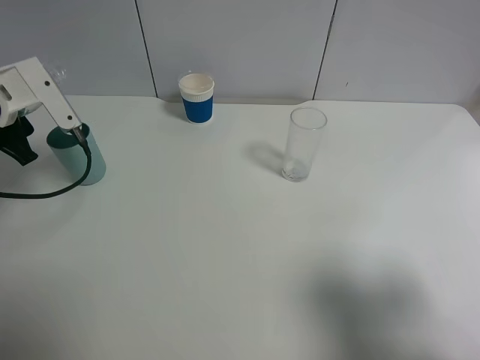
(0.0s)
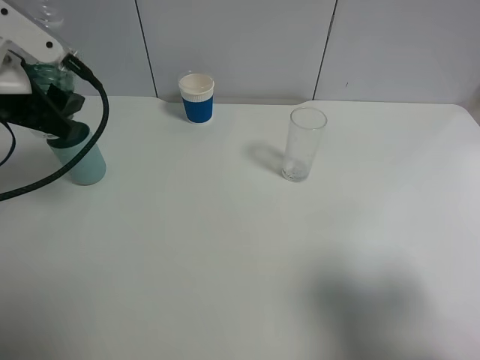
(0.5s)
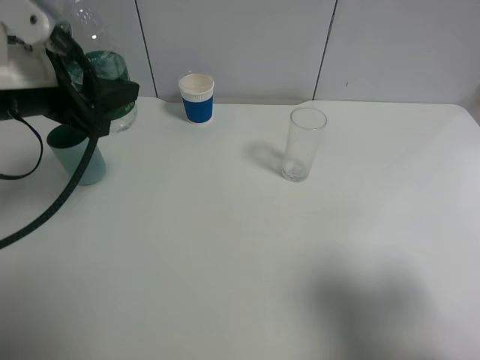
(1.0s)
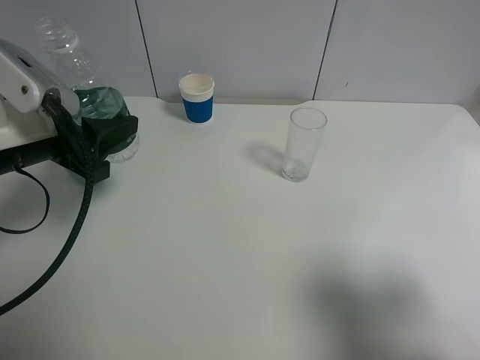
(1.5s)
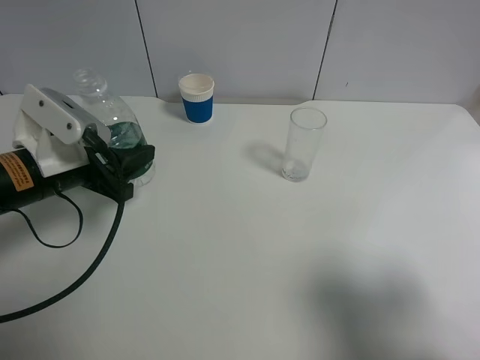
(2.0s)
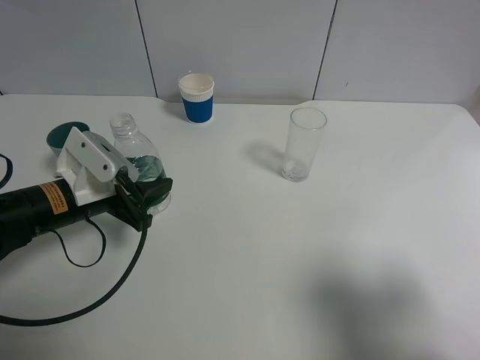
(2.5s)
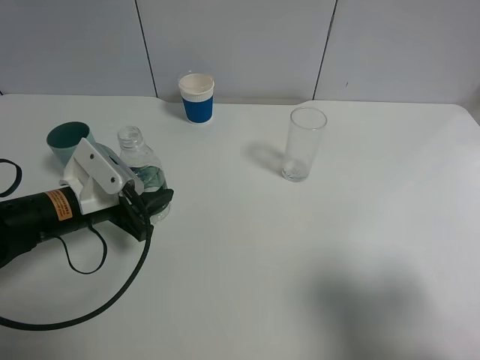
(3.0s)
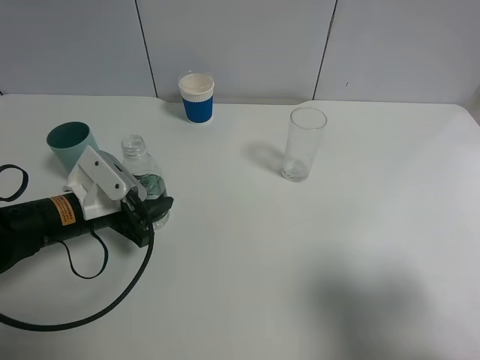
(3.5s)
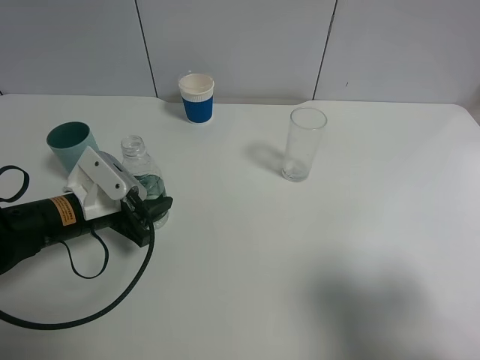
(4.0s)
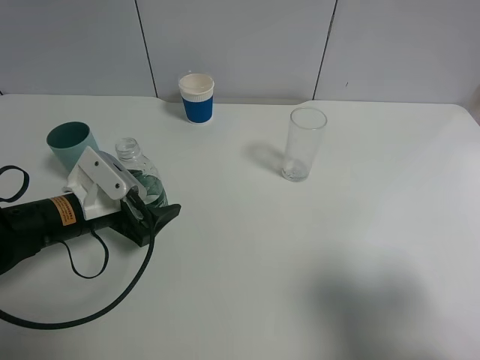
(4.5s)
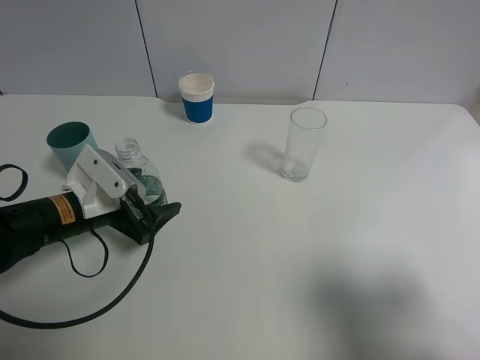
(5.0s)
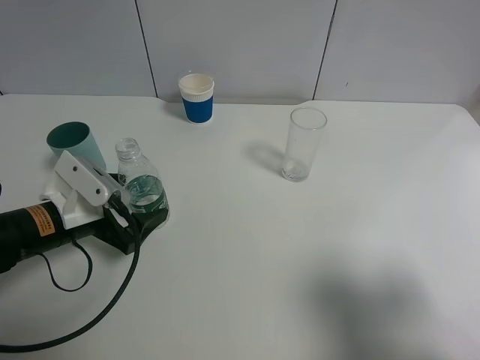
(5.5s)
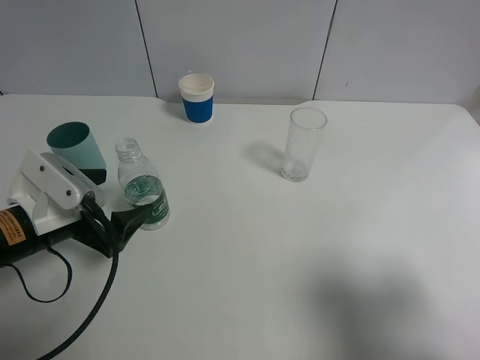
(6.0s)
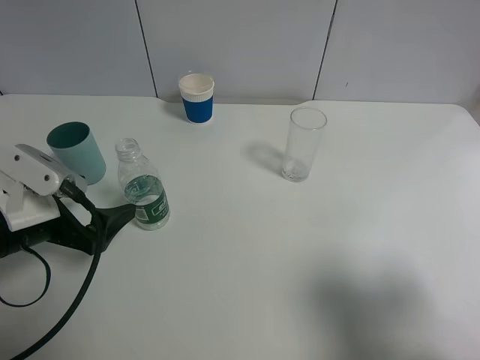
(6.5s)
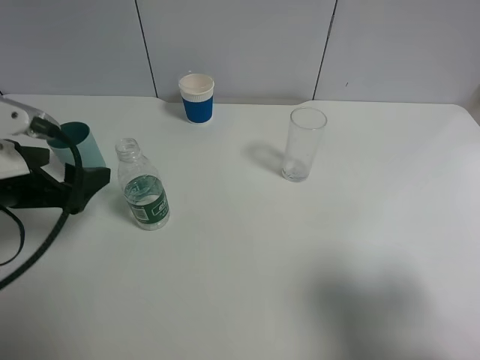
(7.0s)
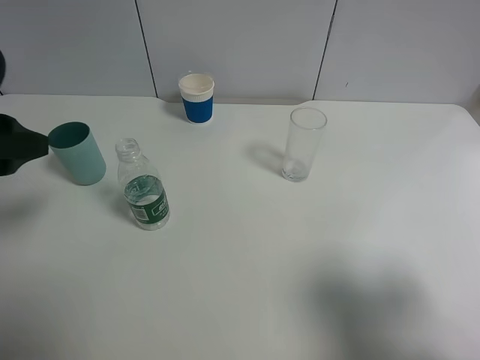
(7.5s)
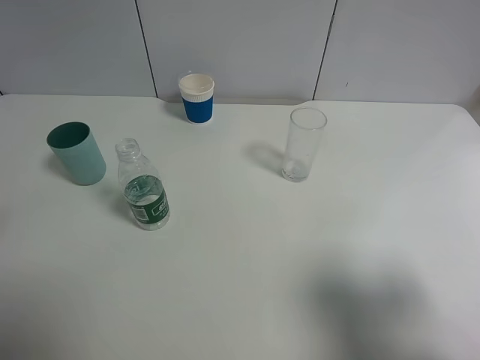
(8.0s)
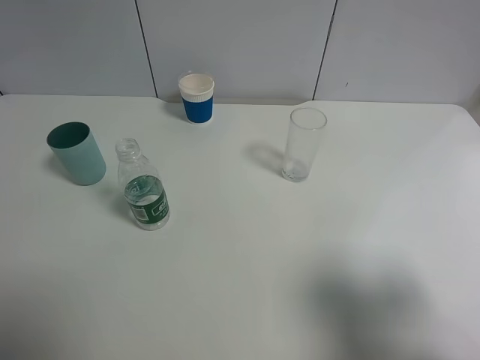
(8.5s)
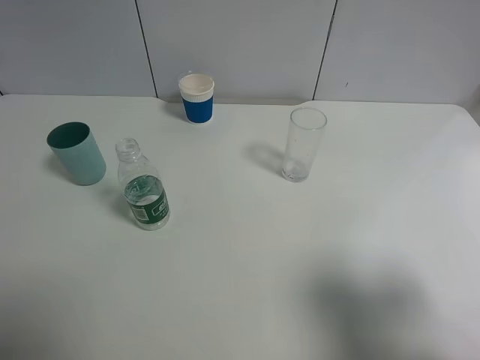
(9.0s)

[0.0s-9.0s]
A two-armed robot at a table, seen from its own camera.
Task of the whole recording: use a gripper to hold the bottle of the drink and pour it into a random cup.
Step, 0.0s to 4.5s: Place the mineral water bottle on the table with the left gripper.
0.0s to 2.0s: The left gripper goes about 10 cm to the right and backward.
2.0s to 4.5s: The left gripper moves downward, some 10 cm, and opens.
4.5s to 7.0s: The left gripper travels upward by approximately 10 cm.
7.0s to 9.0s: The left gripper goes approximately 20 cm backward, upward and to the left.

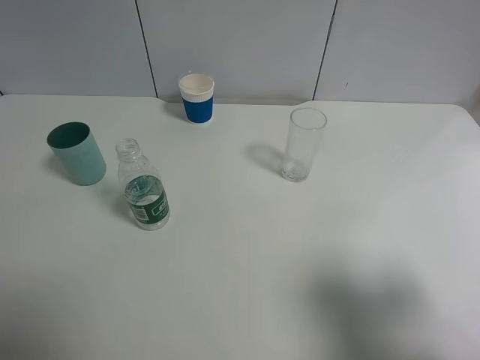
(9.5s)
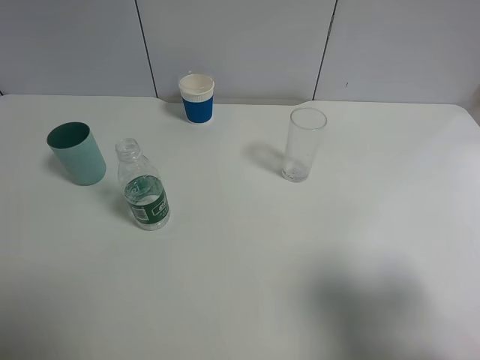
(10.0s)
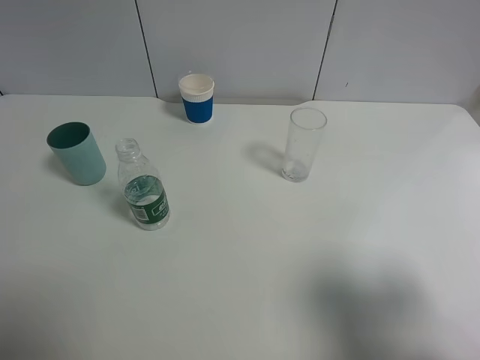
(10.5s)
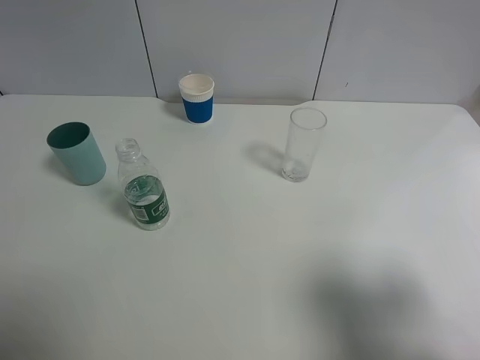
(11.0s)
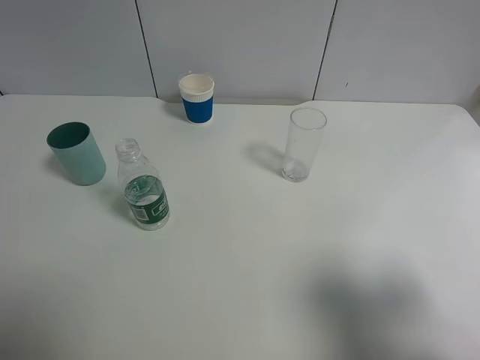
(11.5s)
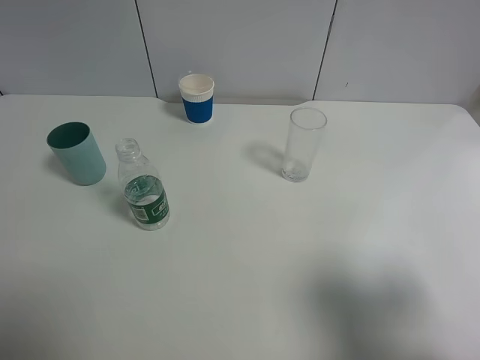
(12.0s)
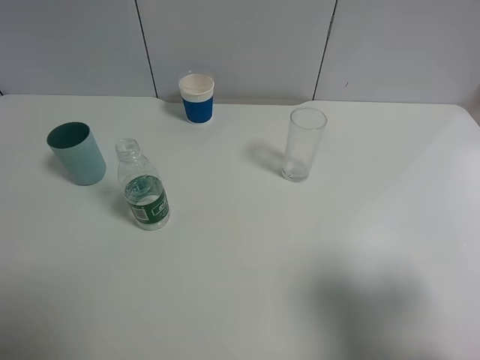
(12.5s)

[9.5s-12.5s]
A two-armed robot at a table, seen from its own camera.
Task of the whole recording: use a gripper to hold the bottle of the drink and pour it into a random cup.
11.0s to 12.5s: Both grippers stay about where they are.

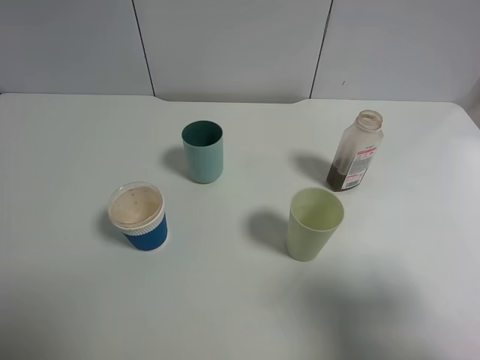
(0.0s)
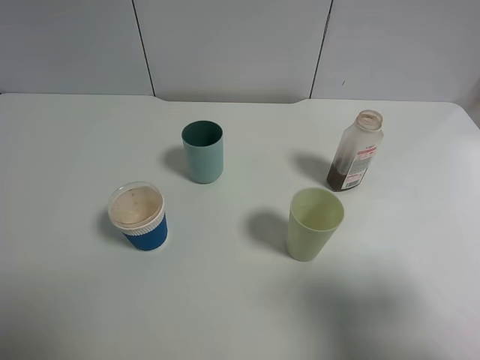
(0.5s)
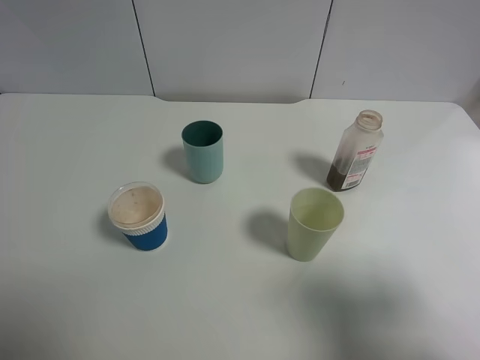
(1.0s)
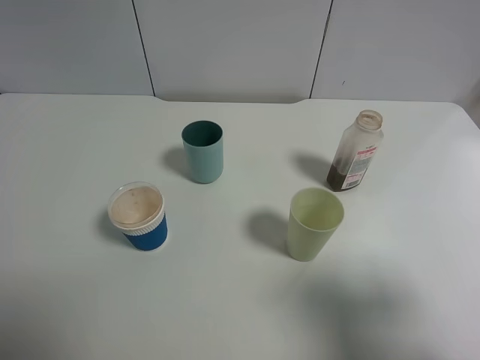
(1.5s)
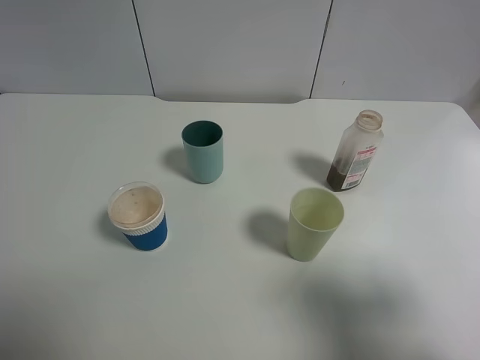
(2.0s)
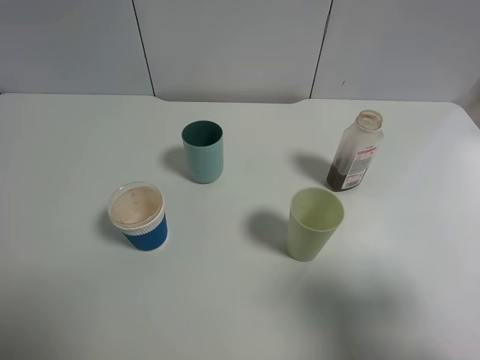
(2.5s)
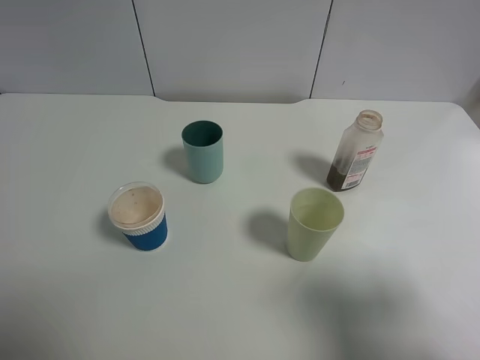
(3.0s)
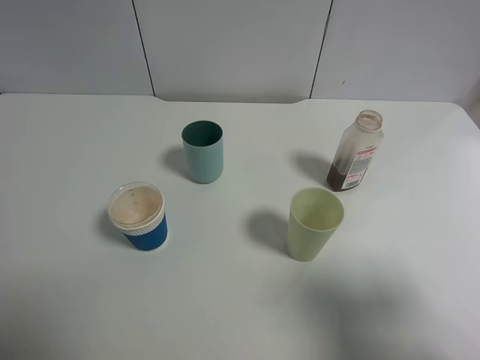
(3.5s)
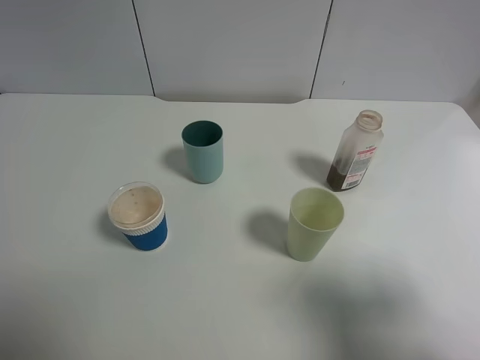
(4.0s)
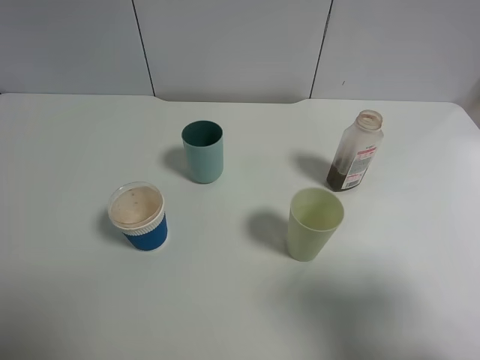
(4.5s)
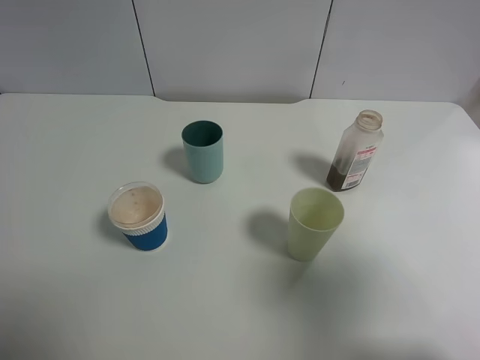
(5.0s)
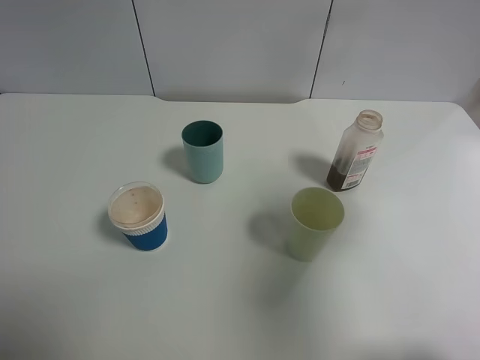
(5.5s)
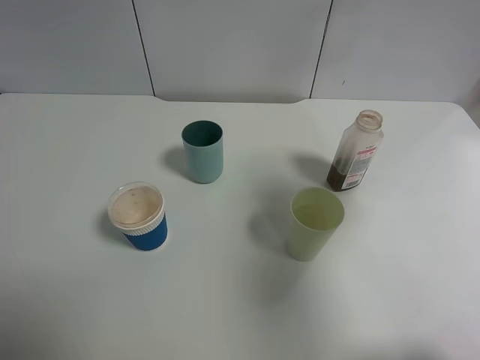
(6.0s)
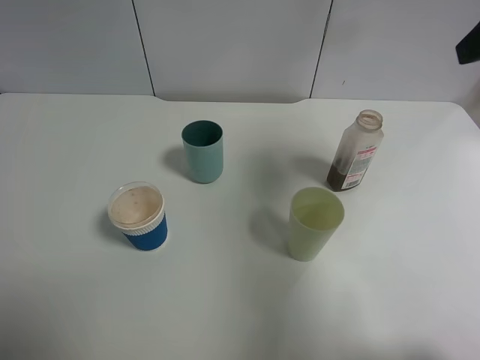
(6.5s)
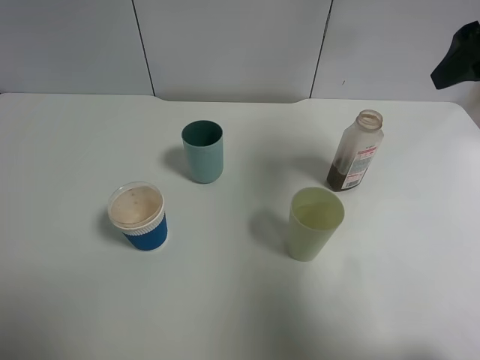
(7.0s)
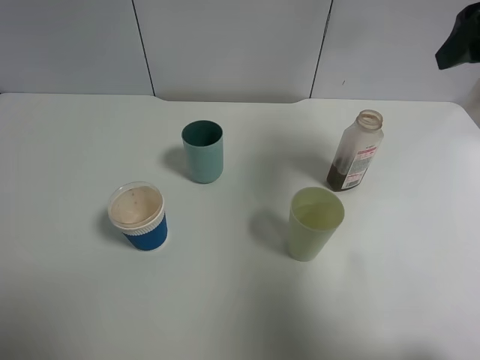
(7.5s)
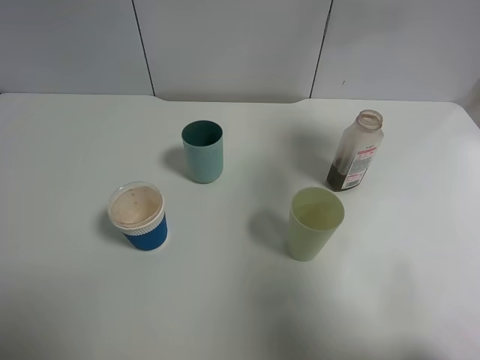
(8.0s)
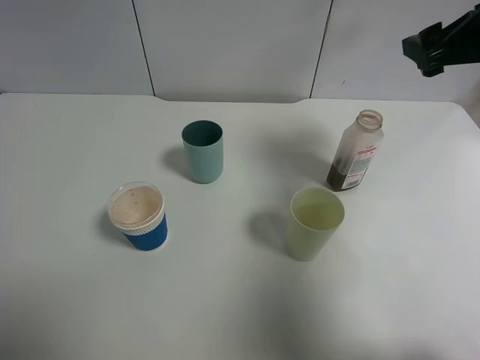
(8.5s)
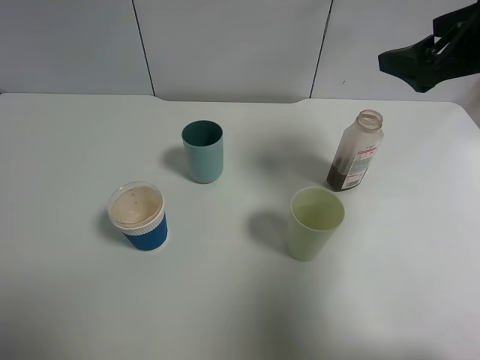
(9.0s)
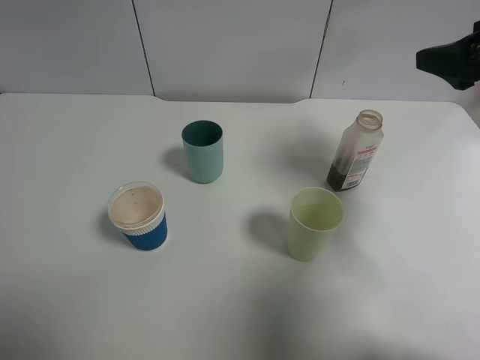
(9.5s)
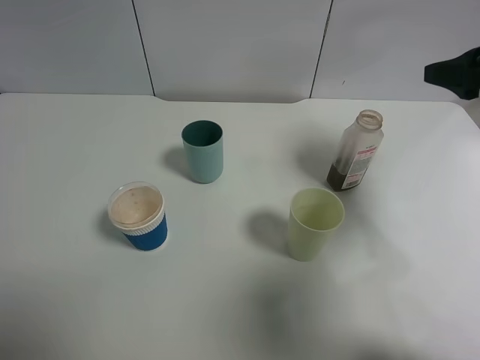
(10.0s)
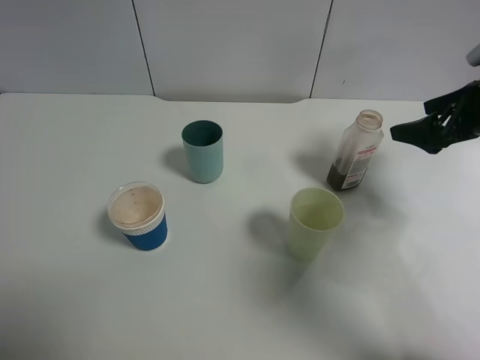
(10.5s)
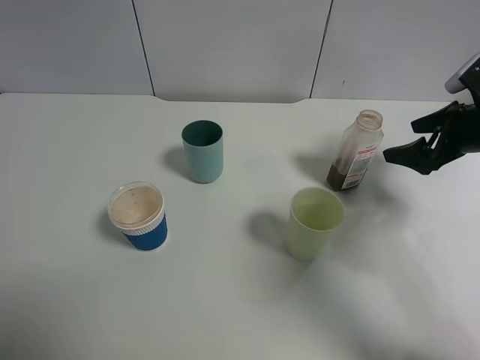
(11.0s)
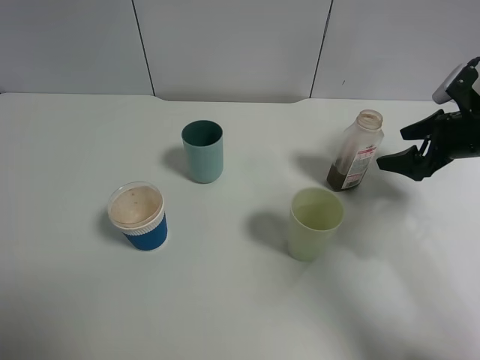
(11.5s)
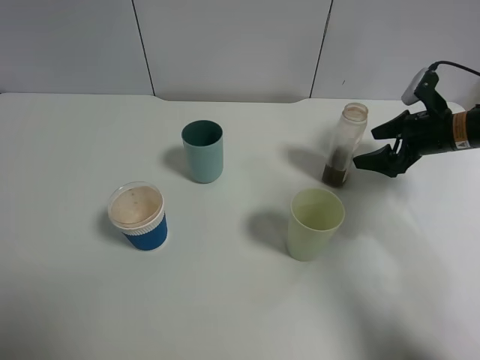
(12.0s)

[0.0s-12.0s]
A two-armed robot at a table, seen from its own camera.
Task of the whole recording: use a gripper to hold the bottle of the drink and pour it into a random cup.
0.0s to 4.0s: The two grippers keep their place.
4.0s to 6.0s: The right gripper travels forward and upward by some 15 cm.
6.0s to 8.0s: The right gripper moves forward, about 15 cm.
8.0s to 10.0s: The right gripper shifts approximately 10 cm downward.
10.0s to 12.0s: The right gripper heads downward and forward, covering some 15 cm.

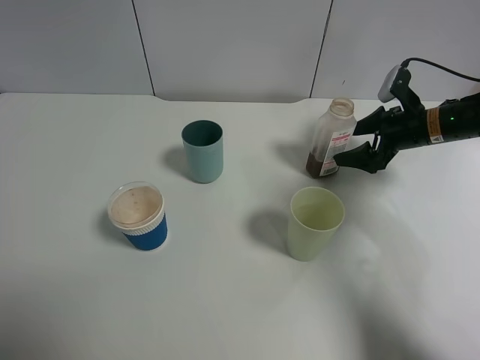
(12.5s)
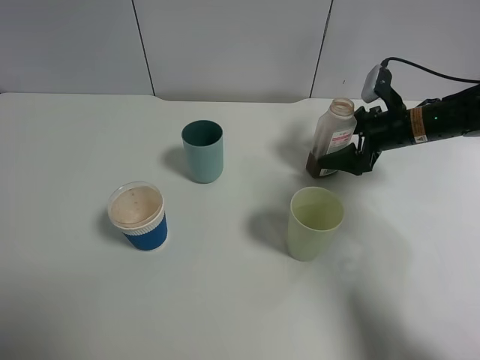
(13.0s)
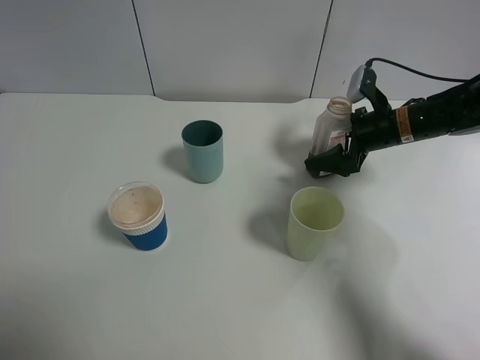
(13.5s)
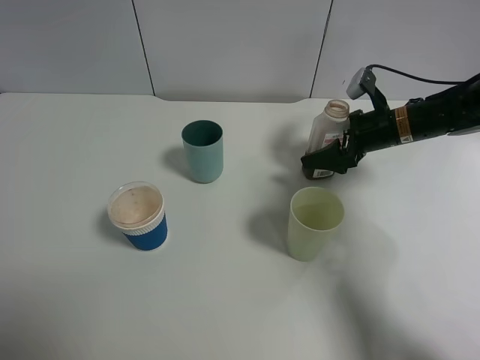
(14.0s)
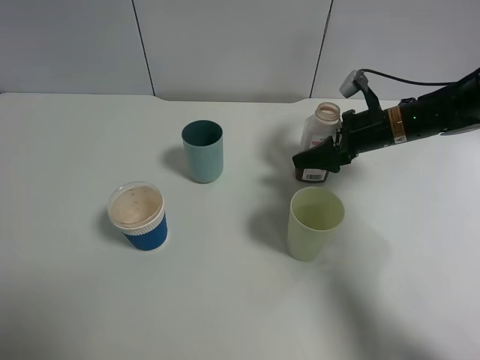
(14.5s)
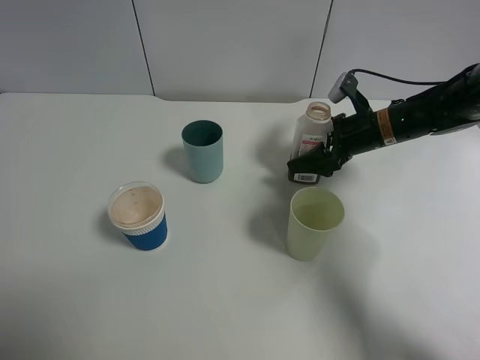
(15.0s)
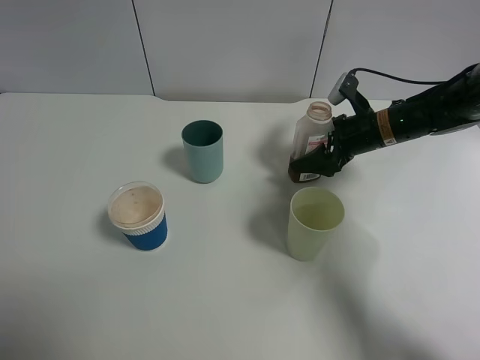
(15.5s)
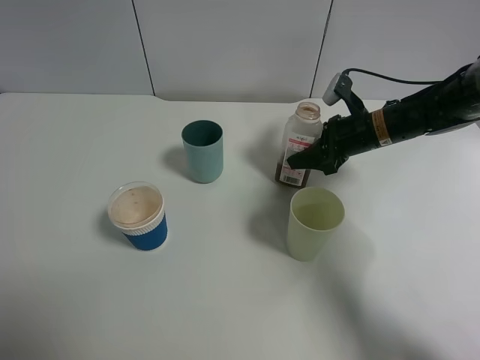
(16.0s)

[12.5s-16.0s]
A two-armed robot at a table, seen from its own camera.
Task of the whole recording: use a gripper to hold the bottle of the drink and pour it into a random cup.
12.5s to 14.5s: The right gripper is displaced to the left by some 10 cm.
14.5s to 16.0s: The right gripper closes its fingers.
